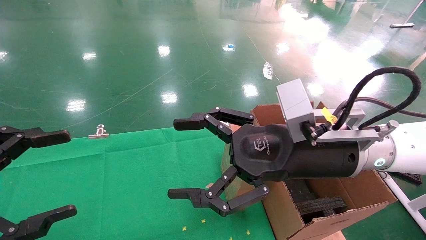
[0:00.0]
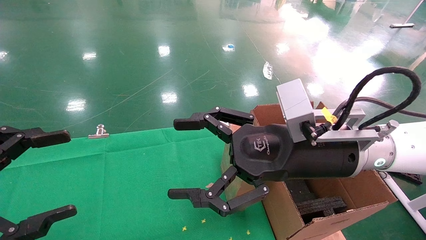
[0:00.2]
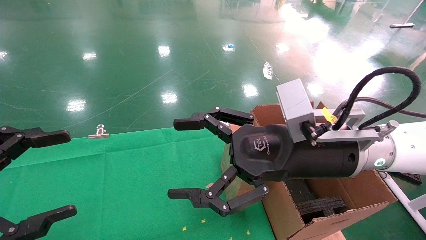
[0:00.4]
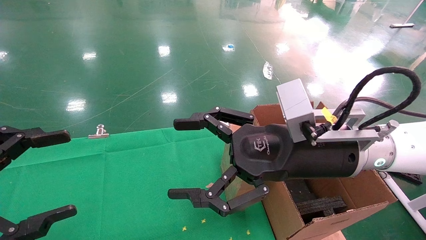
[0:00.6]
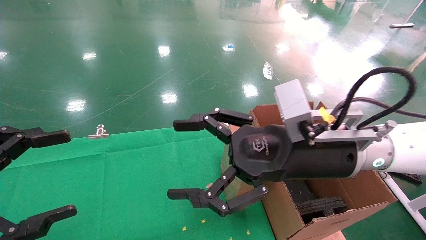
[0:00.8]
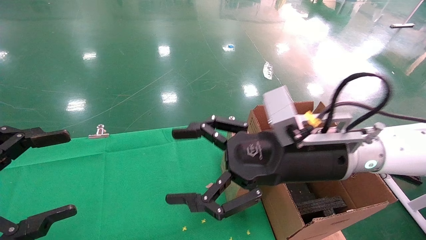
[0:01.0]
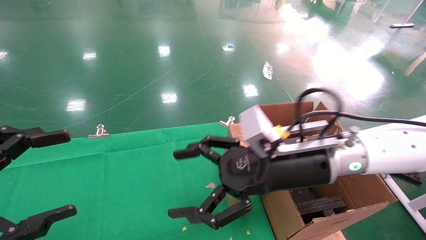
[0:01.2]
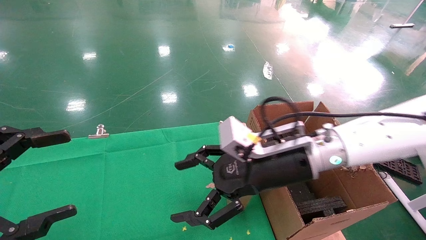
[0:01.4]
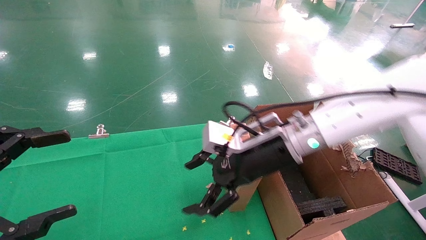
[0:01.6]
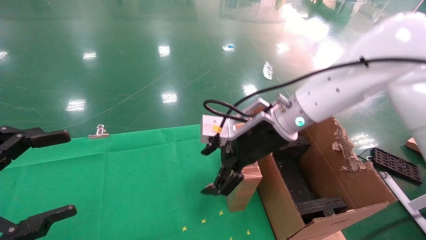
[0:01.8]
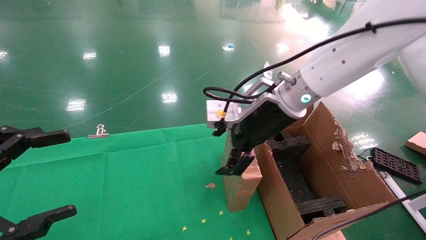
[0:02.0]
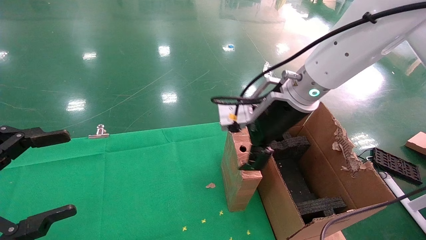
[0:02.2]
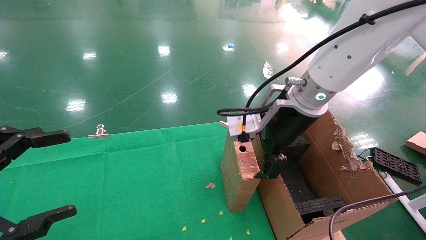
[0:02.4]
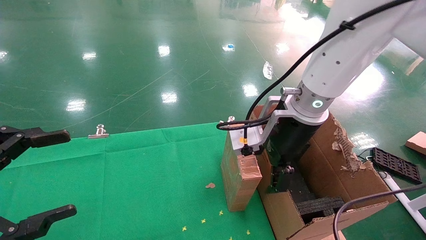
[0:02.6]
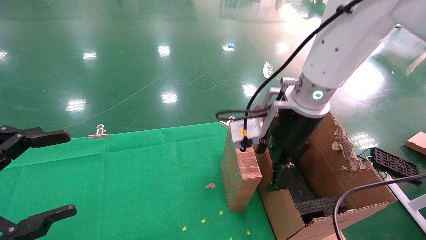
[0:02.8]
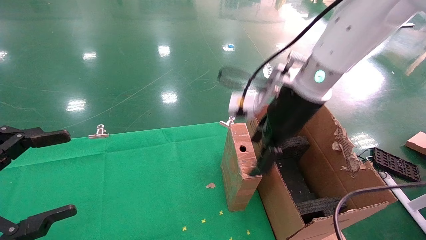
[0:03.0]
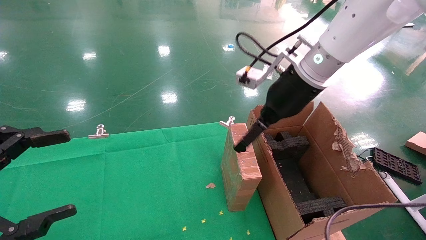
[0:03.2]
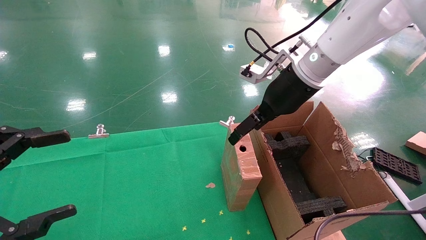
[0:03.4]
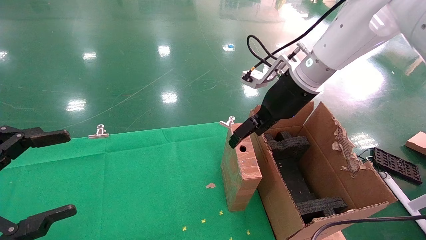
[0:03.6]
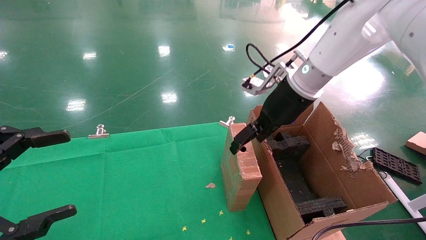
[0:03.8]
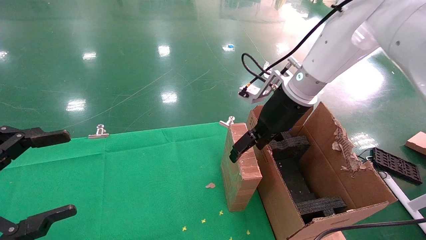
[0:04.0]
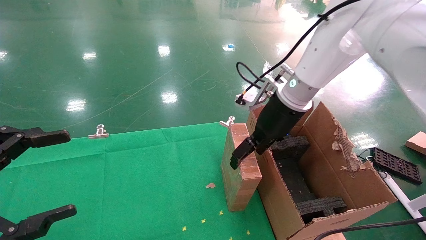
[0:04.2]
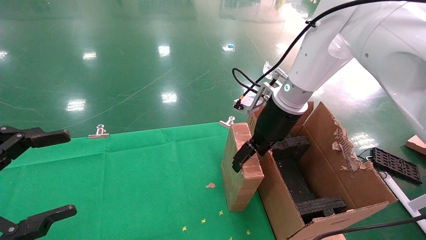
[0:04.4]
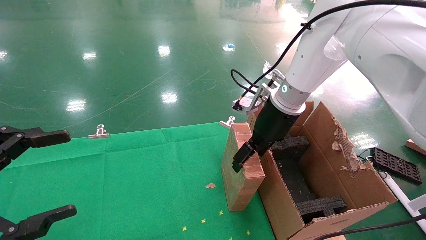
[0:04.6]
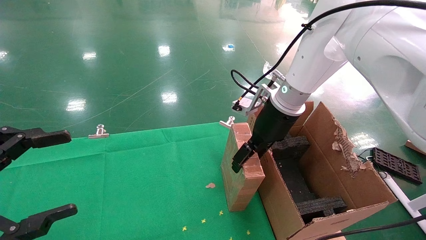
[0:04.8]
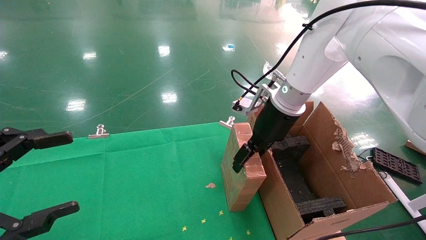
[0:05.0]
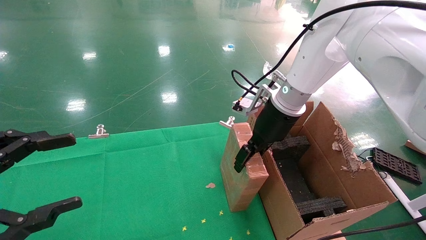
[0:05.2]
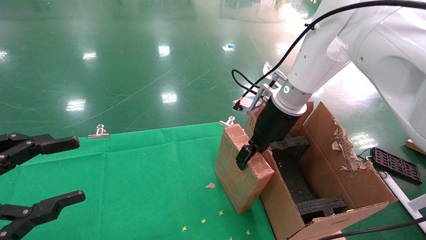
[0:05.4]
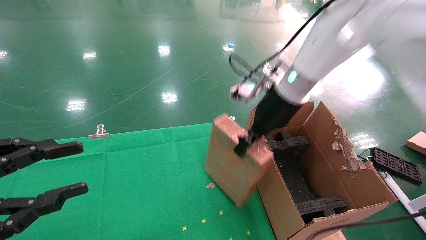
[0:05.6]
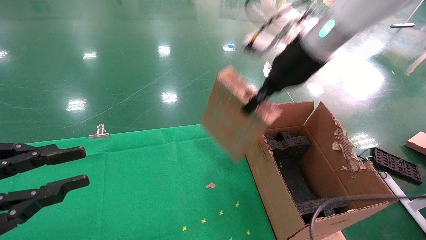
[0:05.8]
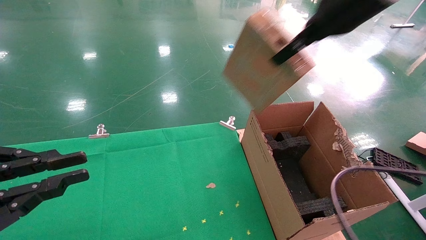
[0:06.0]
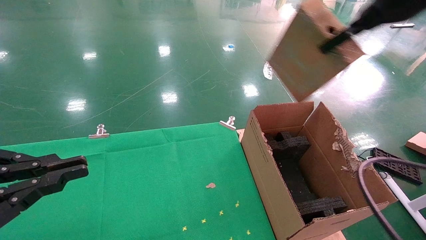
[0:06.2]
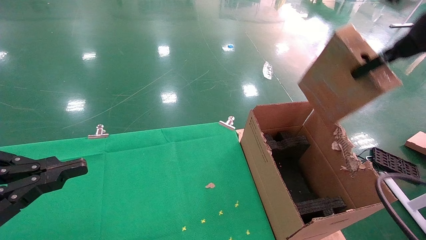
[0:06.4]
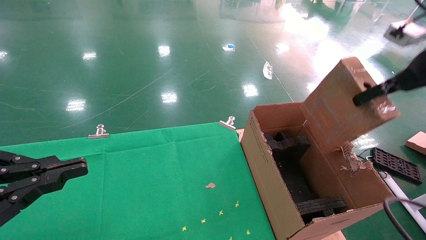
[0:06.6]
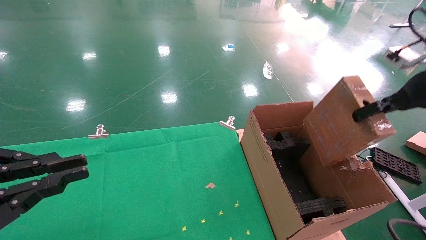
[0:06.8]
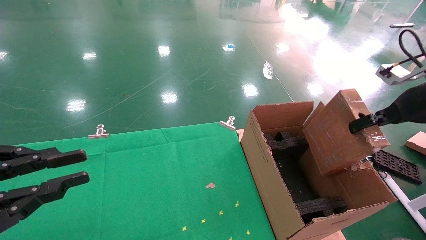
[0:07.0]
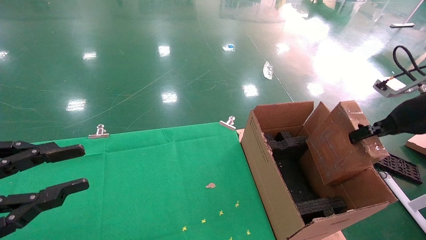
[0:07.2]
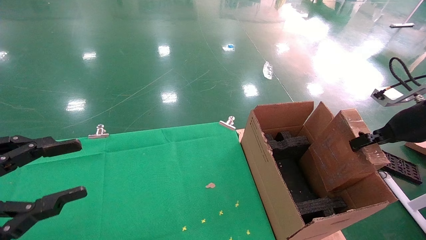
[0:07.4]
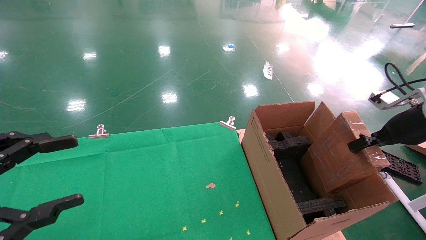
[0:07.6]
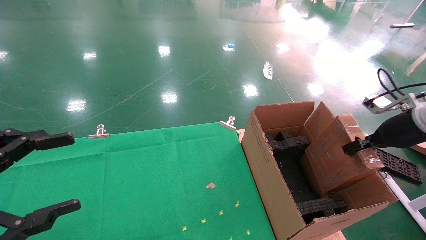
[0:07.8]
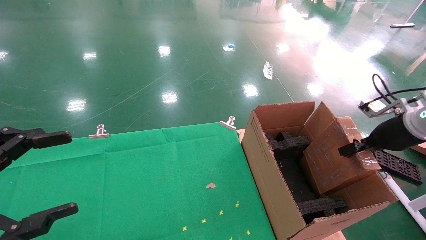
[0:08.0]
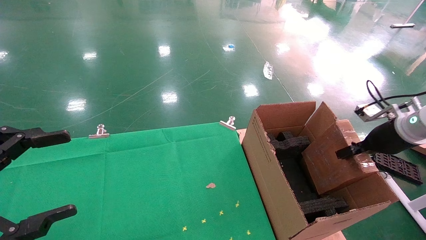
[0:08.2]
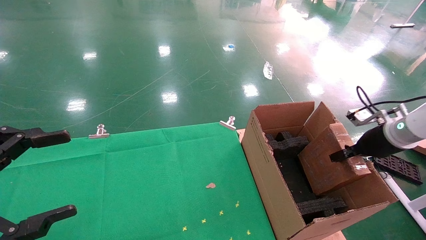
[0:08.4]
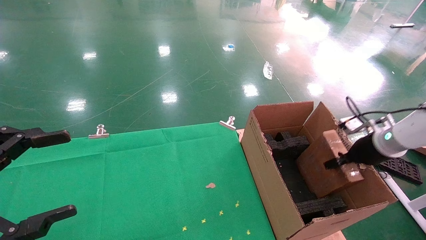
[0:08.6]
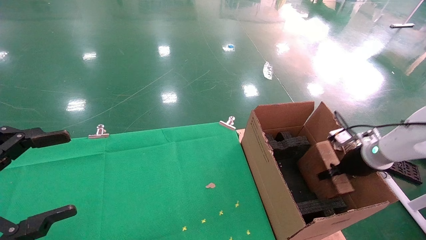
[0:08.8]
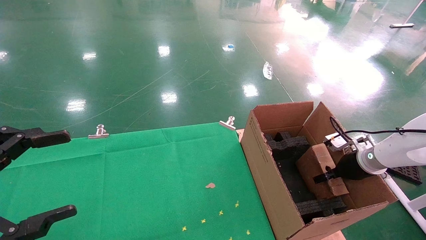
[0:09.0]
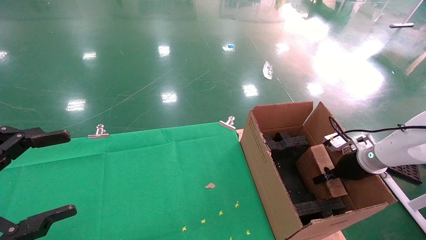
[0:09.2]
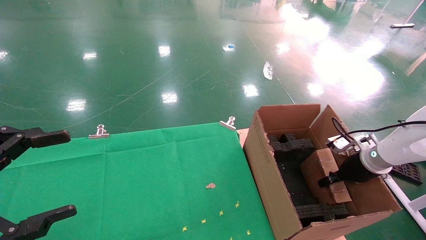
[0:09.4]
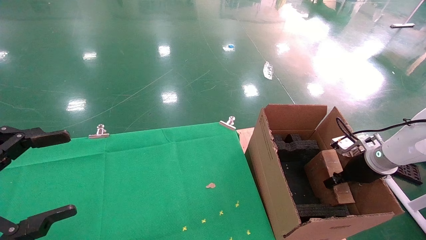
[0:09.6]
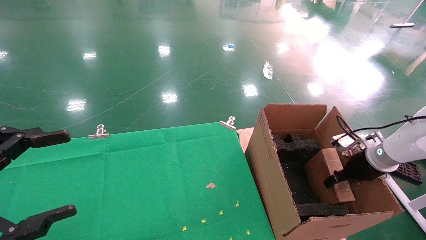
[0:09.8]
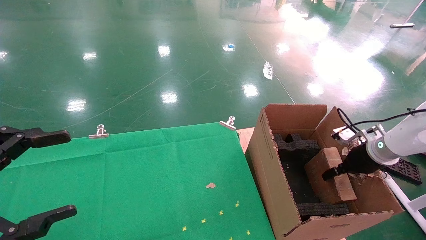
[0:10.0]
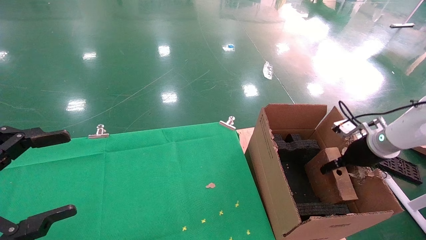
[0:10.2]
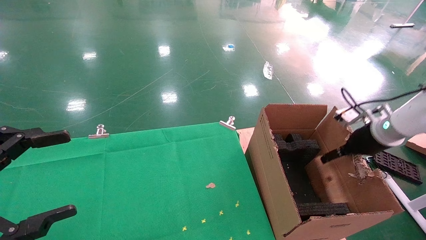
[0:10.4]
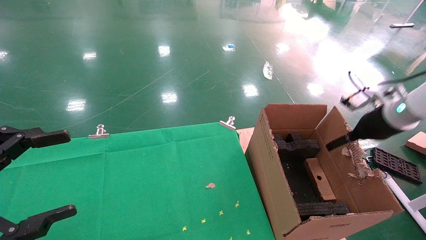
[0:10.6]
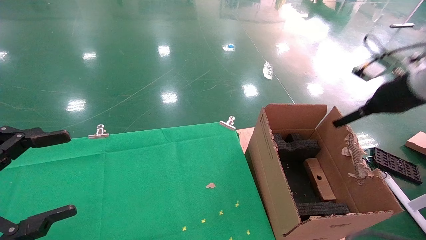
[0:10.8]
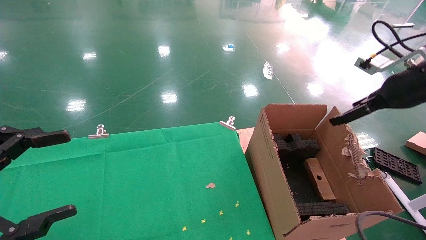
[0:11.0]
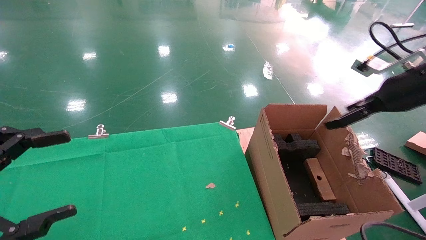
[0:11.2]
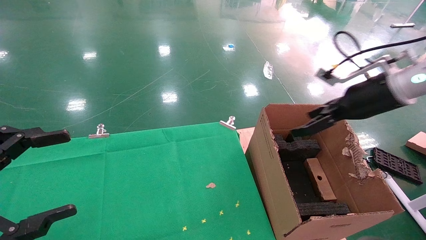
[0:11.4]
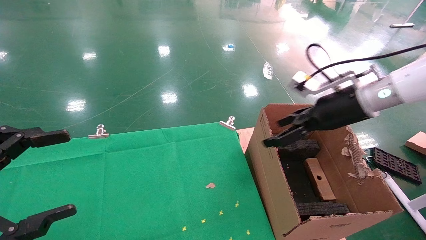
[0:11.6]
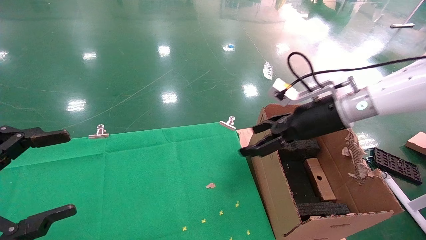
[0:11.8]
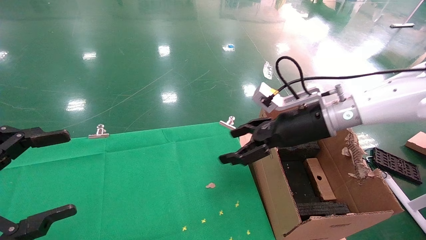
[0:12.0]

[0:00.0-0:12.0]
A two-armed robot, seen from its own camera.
Task of the whole recording: using a robotic arm to pick up a cardboard box and palace it the carton.
Step, 0:01.2 to 0:05.4: Pick up the mouse and the power cord paper box.
Step, 0:05.6 to 0:10.2: Place the mouse and the power cord paper box into the container.
0:00.0 to 0:01.6: The right gripper heads forward, covering some 10 cm.
0:01.6 to 0:03.0: The right gripper moves upward, some 10 cm.
0:03.0 to 0:04.4: The right gripper shifts approximately 5 cm forward.
0:04.4 to 0:06.0: The right gripper is displaced upward, to the right and backward by roughly 20 cm, and closes its fingers. Meanwhile the left gripper closes up.
0:06.0 to 0:07.6: The left gripper opens, while the right gripper shifts about 30 cm downward and to the right.
0:07.6 to 0:09.0: The right gripper is displaced downward and forward by roughly 15 cm. The left gripper opens up.
0:09.0 to 0:10.4: The right gripper travels upward by approximately 10 cm, and opens up.
0:10.4 to 0:12.0: The right gripper heads to the left, covering about 20 cm.

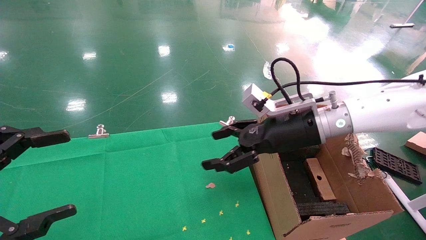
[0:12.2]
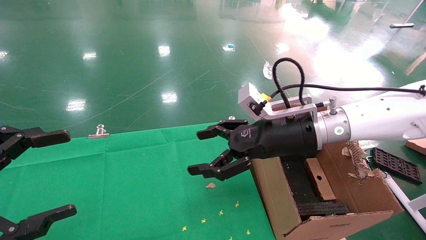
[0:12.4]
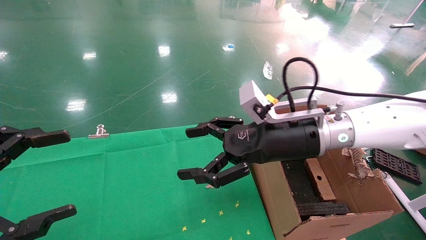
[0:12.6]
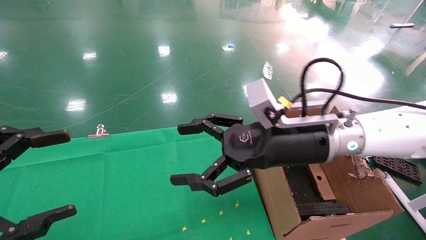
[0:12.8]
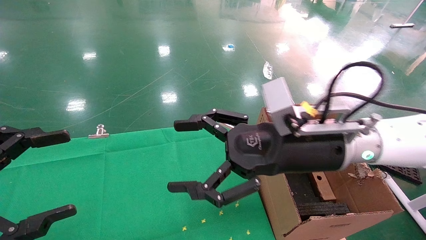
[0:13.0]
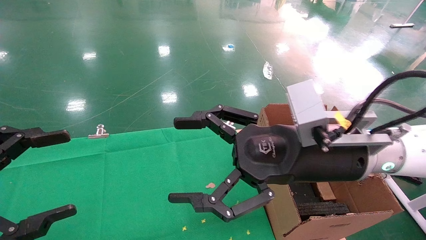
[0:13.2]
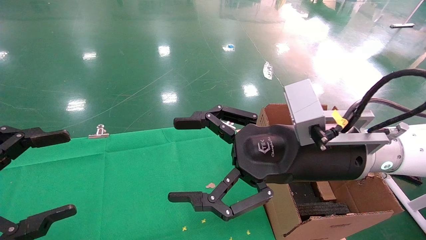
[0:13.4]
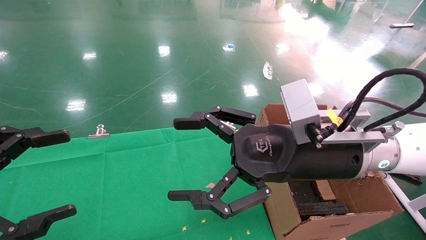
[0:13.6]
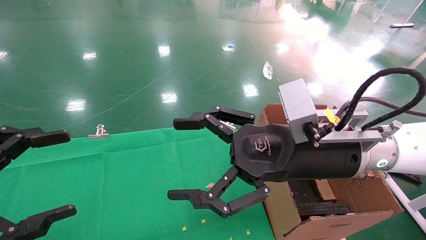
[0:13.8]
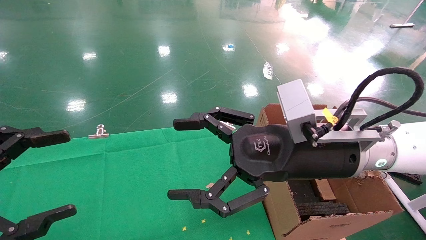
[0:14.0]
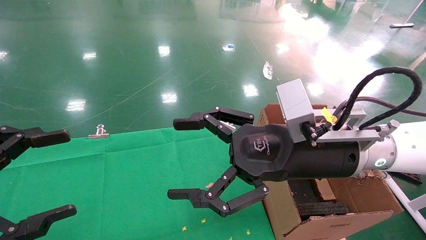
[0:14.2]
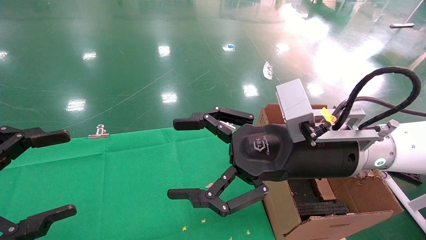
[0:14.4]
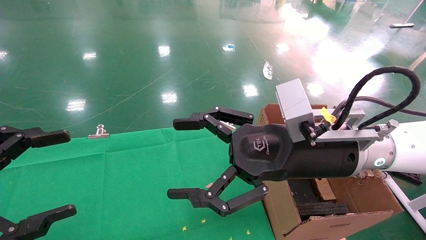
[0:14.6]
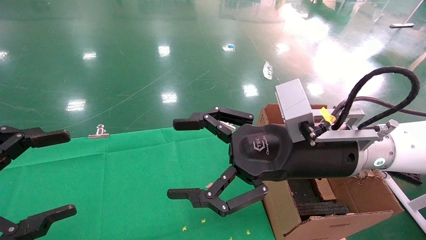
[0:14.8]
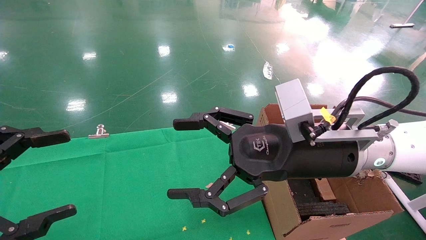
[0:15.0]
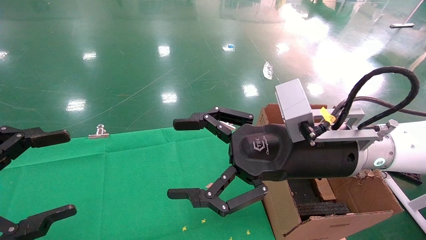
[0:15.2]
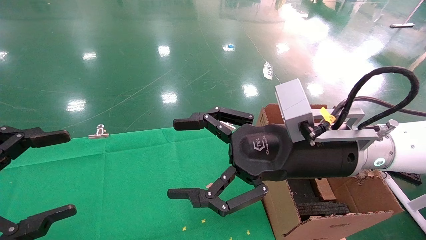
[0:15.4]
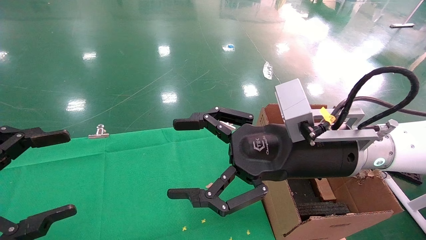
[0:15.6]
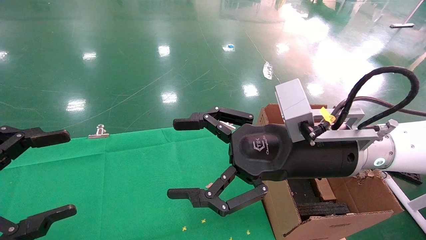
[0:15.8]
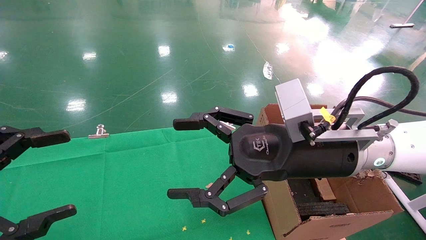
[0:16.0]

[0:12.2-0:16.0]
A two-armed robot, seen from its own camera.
Task of the whole recording: using a robotic arm to pick up a cardboard box and palace it the carton.
0:12.2 to 0:13.4: The right gripper travels backward by some 10 cm.
0:13.4 to 0:16.0: Neither gripper changes place.
